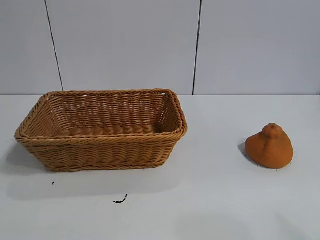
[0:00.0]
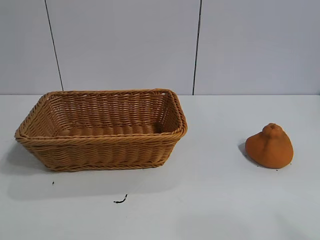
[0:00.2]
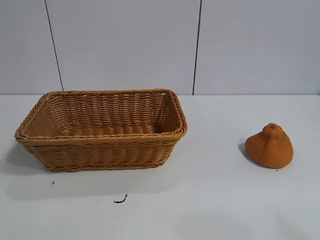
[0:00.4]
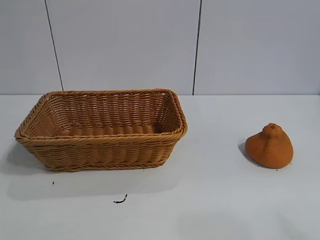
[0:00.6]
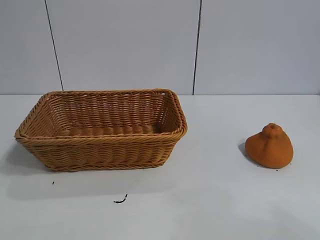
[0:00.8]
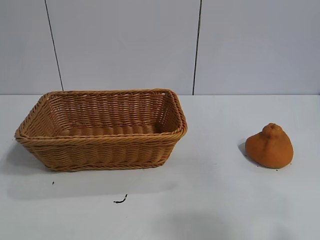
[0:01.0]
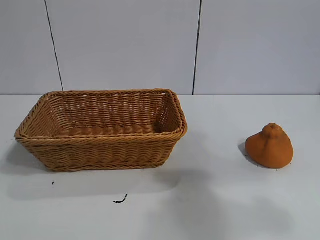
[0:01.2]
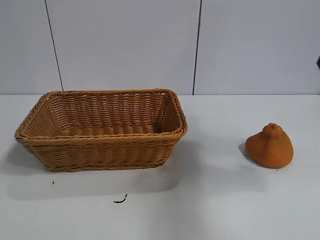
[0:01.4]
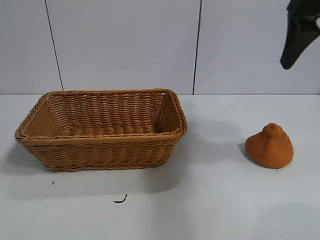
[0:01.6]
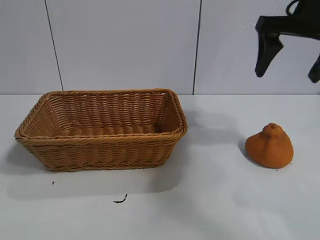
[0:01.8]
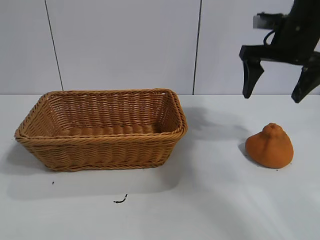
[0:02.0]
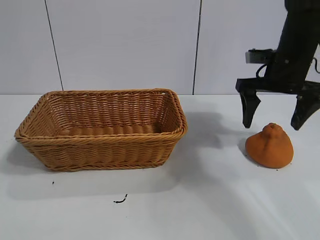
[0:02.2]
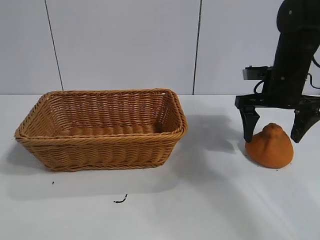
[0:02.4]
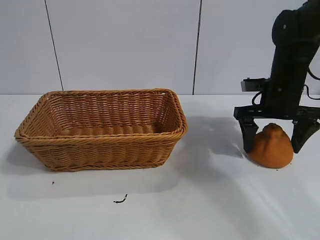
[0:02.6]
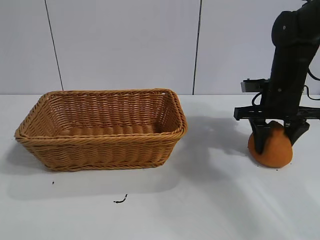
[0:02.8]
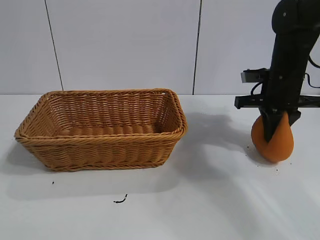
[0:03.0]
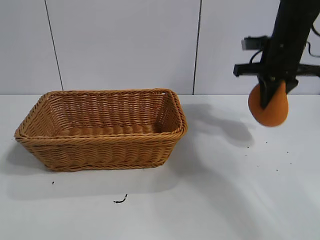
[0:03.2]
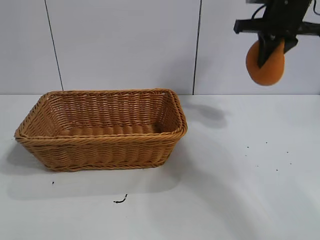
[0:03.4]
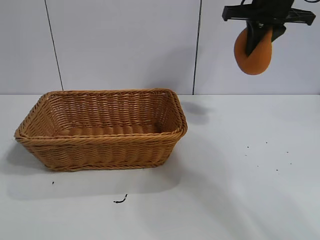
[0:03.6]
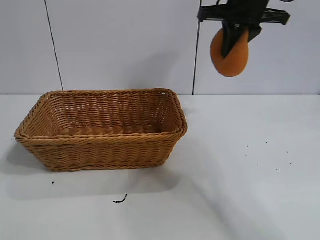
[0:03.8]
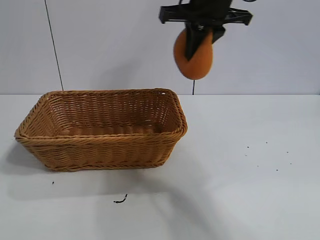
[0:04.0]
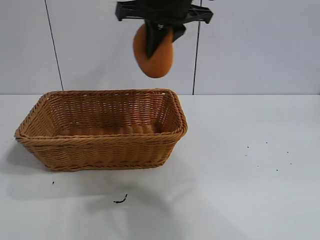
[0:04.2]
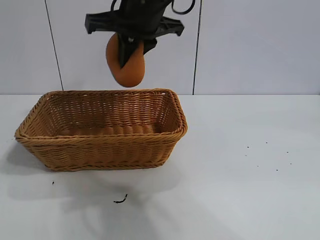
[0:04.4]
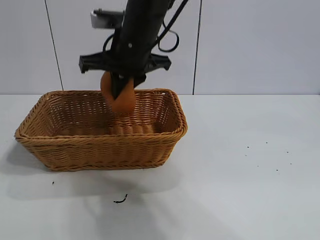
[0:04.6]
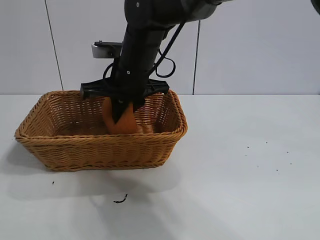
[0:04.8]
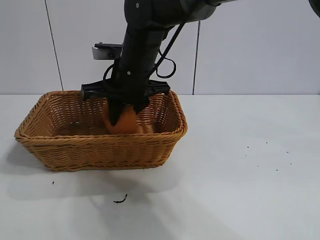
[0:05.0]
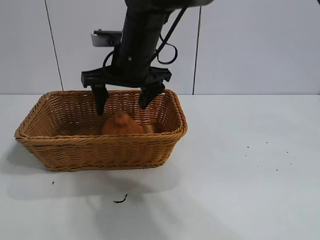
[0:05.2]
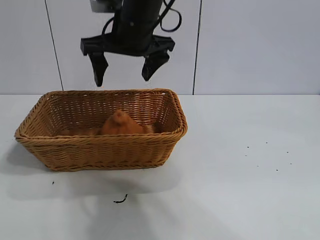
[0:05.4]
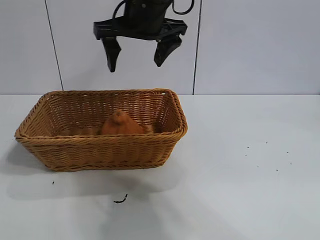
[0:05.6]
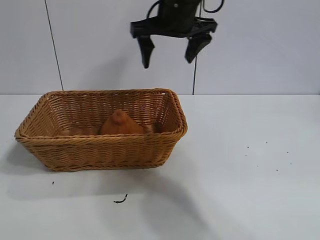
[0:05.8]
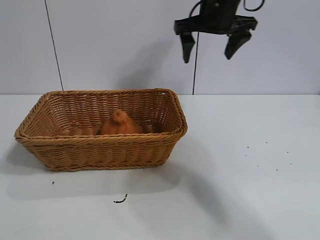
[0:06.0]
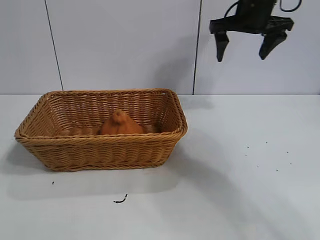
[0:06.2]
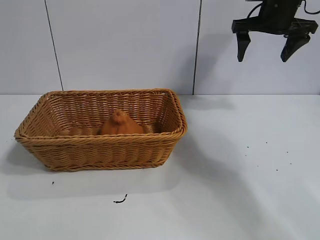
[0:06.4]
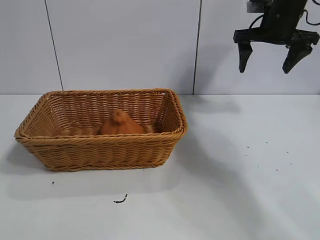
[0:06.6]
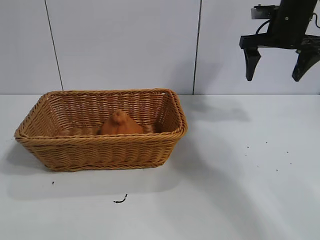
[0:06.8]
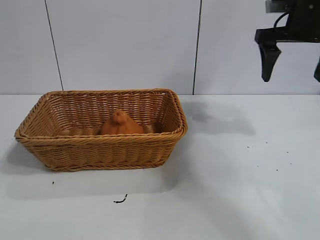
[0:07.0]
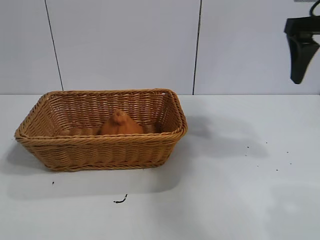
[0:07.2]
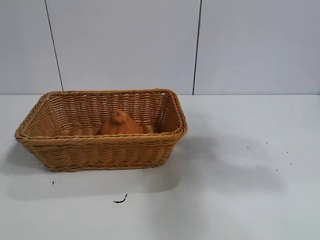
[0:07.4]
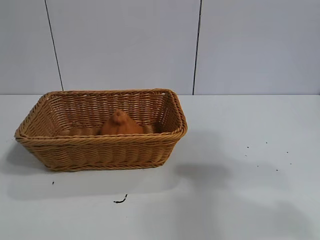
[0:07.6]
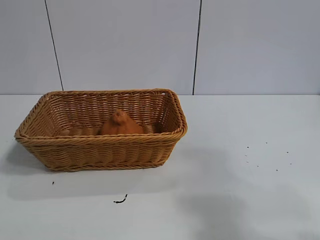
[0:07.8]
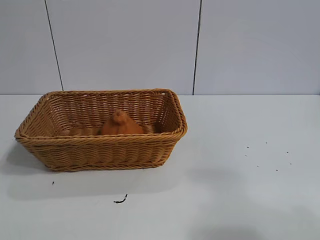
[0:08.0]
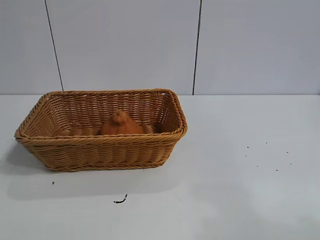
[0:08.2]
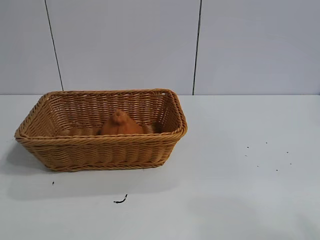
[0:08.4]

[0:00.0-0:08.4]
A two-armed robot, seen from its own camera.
Task of the whole recording: pick up the orange and put it into the basket.
Step, 0:00.6 to 0:02.8: Grasp the orange with right gripper.
Step, 0:03.0 to 0:05.2: Place the orange in the basket with right gripper.

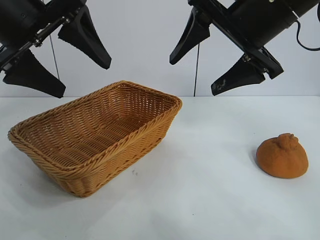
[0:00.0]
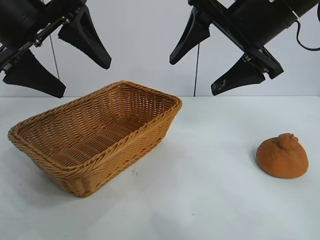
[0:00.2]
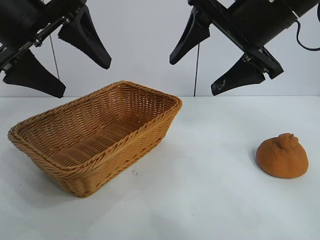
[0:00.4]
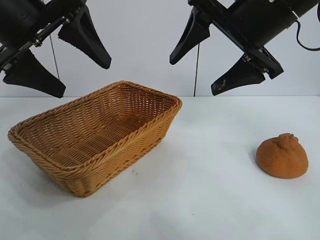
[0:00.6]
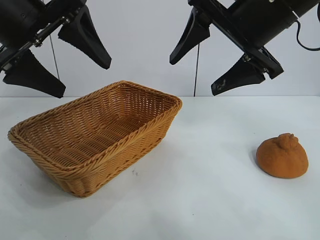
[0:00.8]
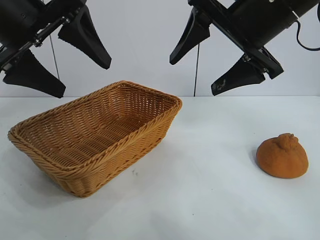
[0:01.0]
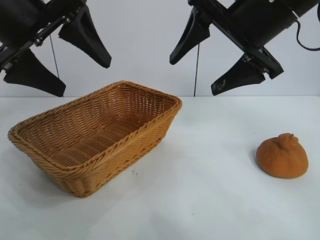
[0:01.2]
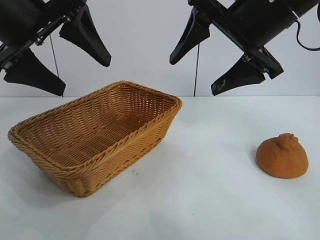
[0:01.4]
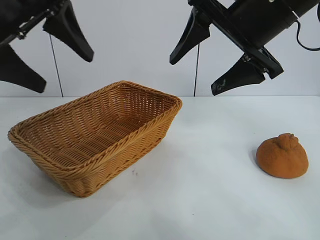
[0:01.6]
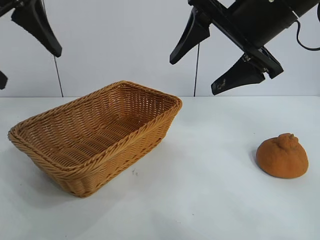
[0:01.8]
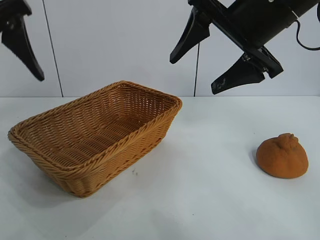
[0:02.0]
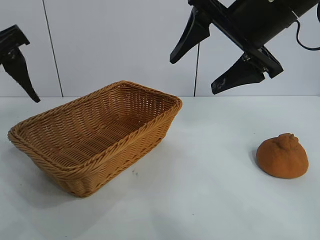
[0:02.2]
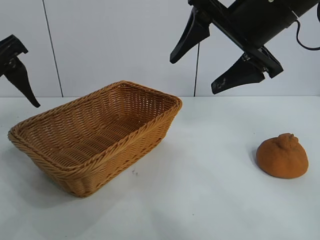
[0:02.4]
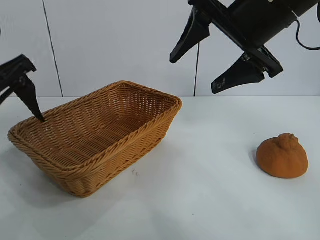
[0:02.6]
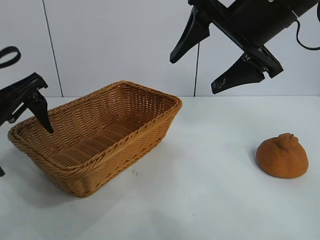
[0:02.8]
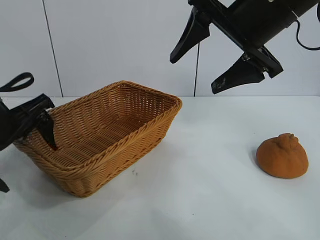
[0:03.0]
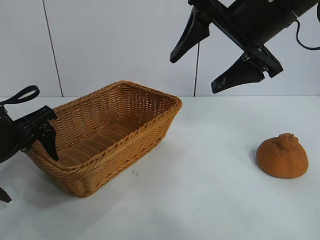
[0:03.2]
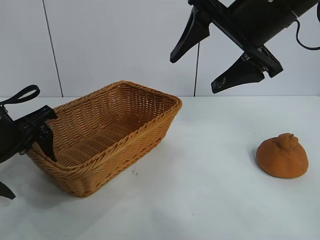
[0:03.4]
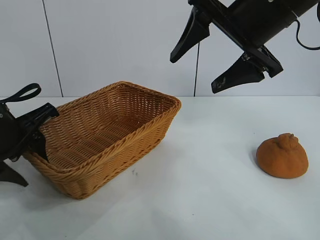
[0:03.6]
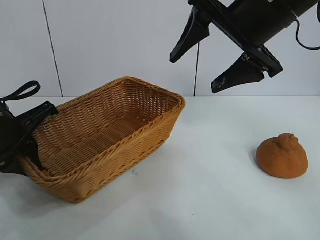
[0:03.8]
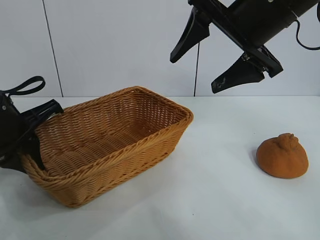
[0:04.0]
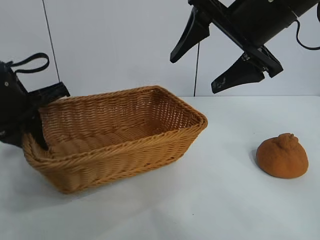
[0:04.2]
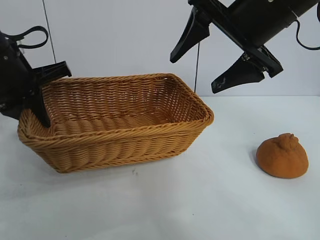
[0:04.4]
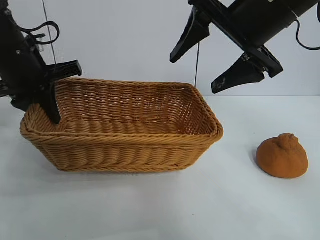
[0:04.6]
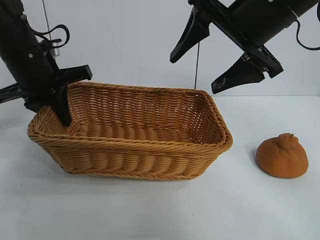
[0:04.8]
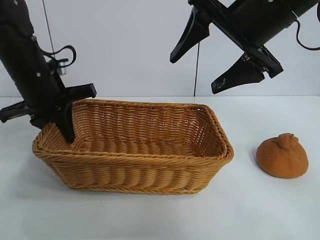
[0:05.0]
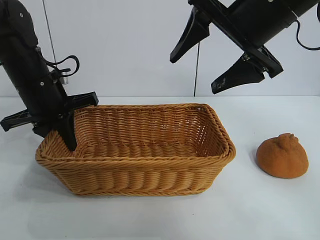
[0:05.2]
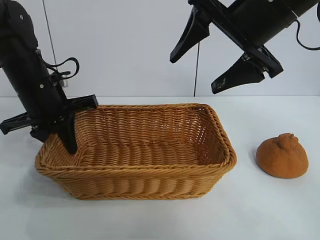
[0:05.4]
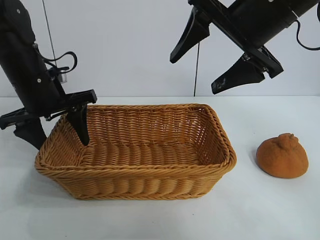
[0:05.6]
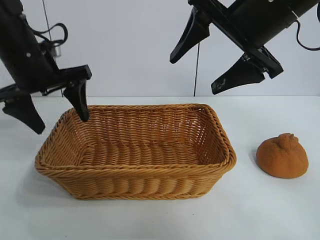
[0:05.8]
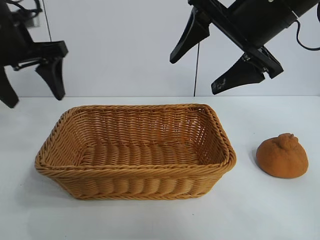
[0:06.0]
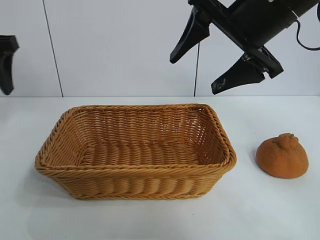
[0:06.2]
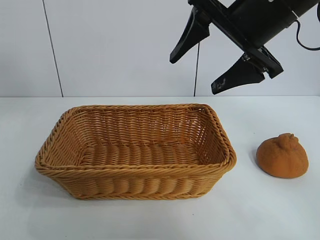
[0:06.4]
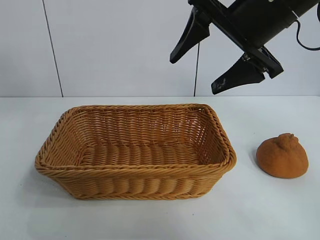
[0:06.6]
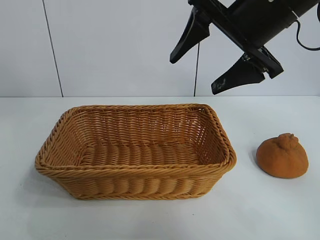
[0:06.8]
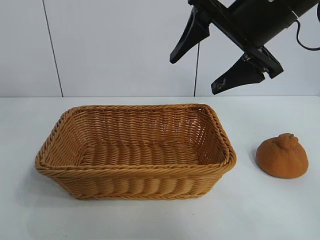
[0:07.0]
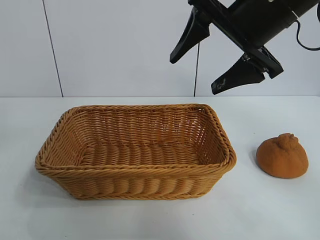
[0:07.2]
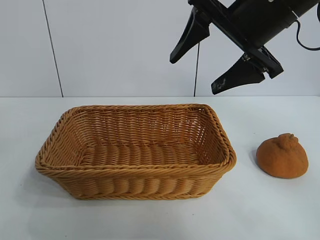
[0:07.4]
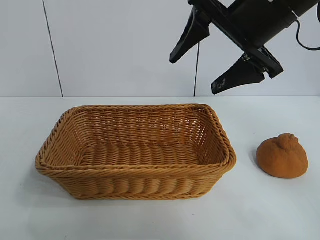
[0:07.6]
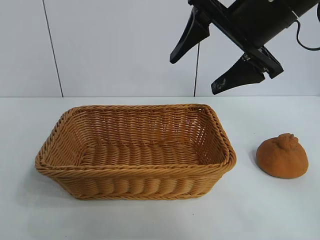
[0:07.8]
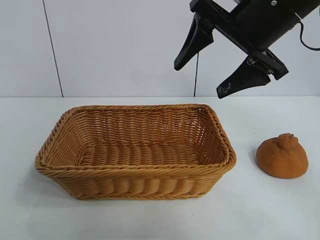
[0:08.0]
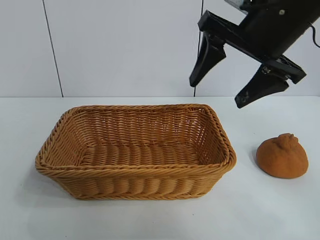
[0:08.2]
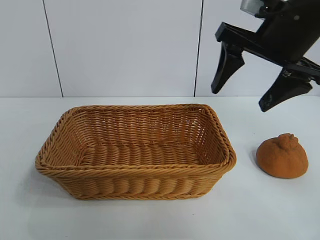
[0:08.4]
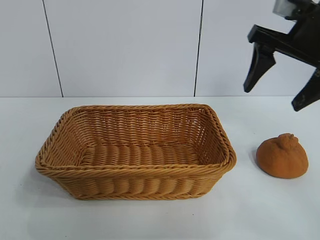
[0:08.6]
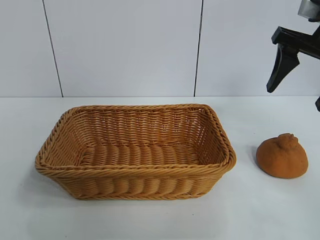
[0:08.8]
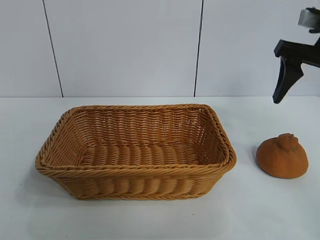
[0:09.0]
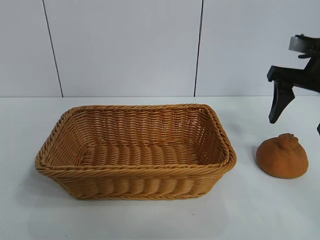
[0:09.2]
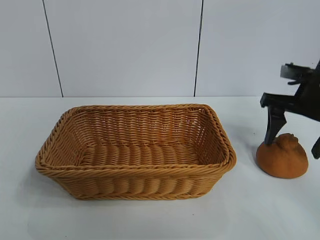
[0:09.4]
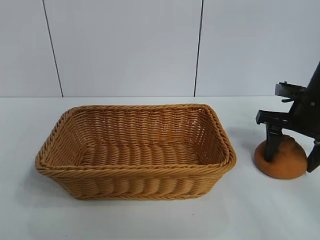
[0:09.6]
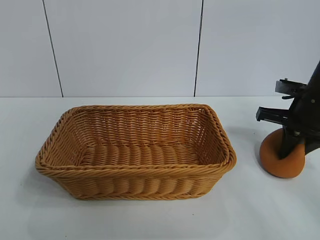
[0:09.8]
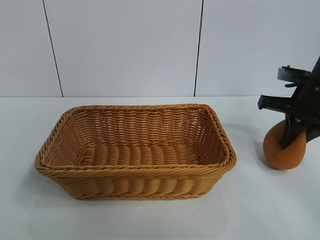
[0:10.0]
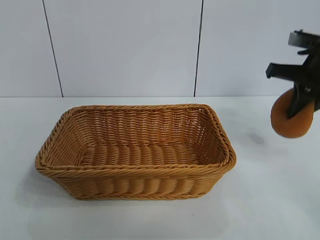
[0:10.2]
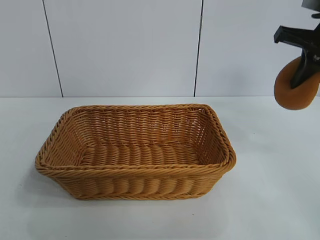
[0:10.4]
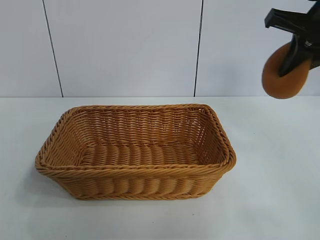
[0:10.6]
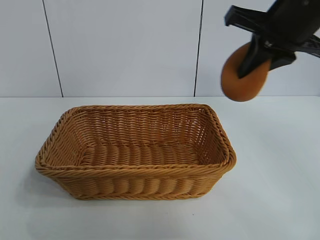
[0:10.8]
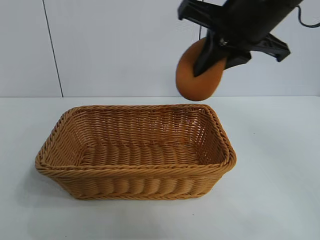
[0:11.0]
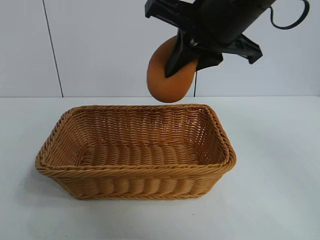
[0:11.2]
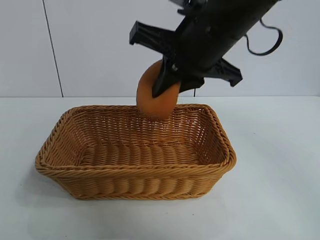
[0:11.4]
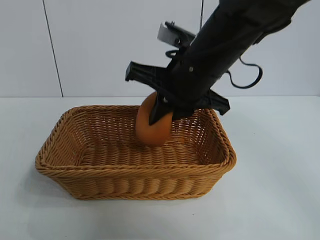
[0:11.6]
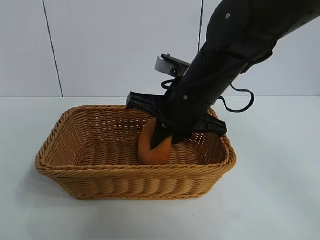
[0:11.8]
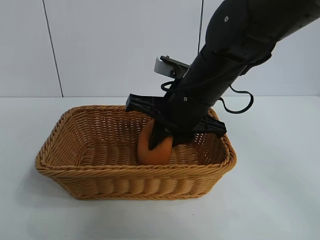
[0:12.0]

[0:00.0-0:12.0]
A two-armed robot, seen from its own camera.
Task of the whole recording: pick up the orange and put it into the basket.
Step, 0:01.2 to 0:03.8: Grasp the basket with left gripper.
Step, 0:04.0 to 0:05.4: Place the basket in the center of view with left gripper.
Step, 0:05.8 to 0:09.6: Grasp the orange with right gripper.

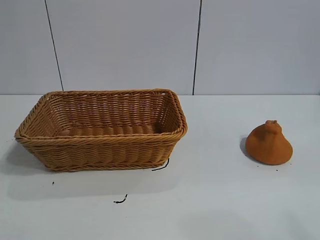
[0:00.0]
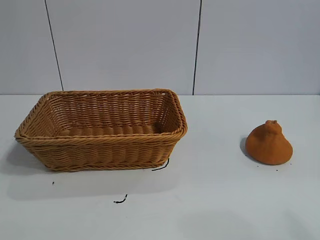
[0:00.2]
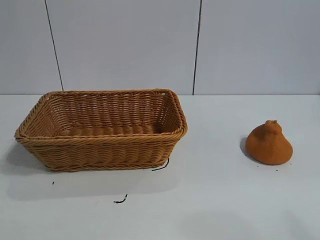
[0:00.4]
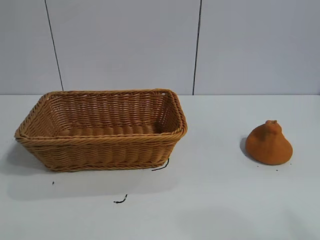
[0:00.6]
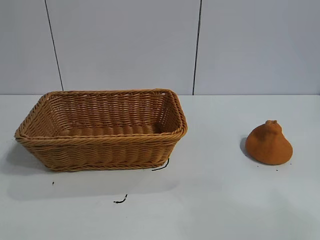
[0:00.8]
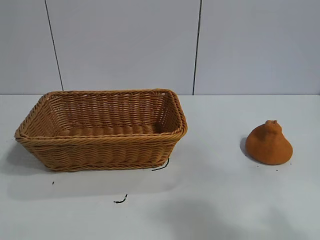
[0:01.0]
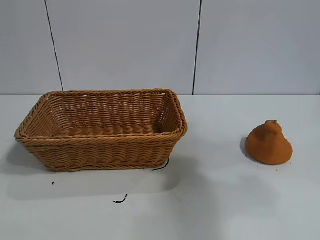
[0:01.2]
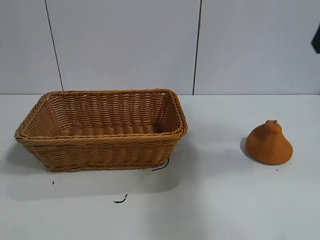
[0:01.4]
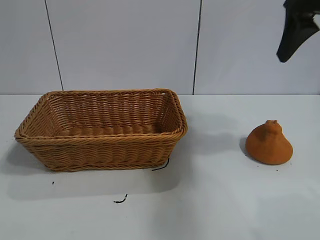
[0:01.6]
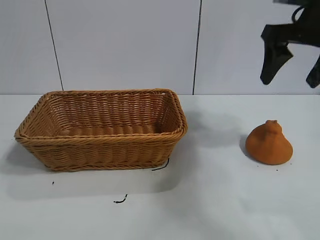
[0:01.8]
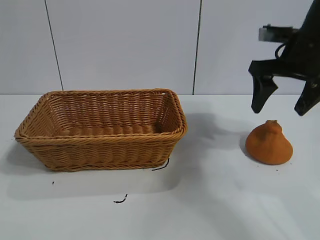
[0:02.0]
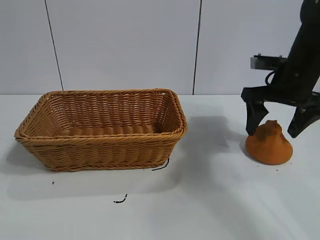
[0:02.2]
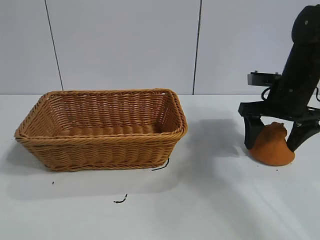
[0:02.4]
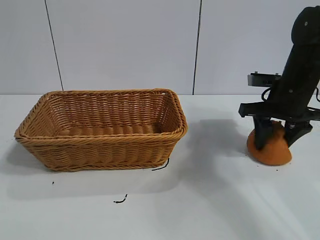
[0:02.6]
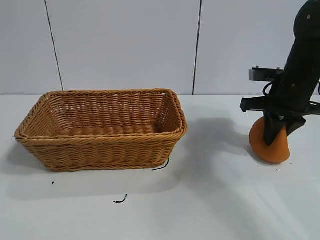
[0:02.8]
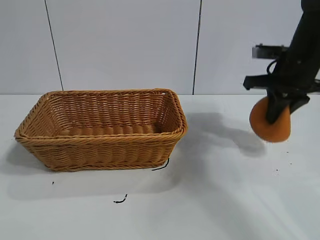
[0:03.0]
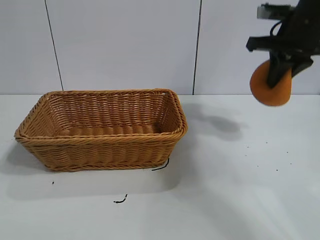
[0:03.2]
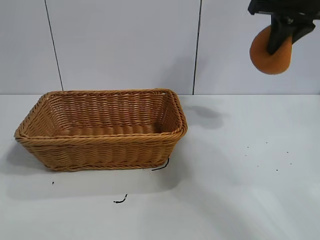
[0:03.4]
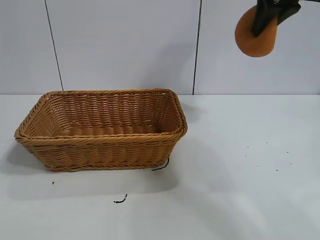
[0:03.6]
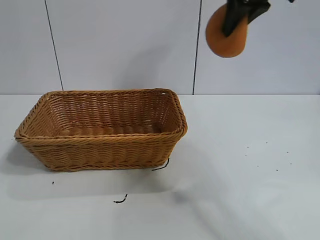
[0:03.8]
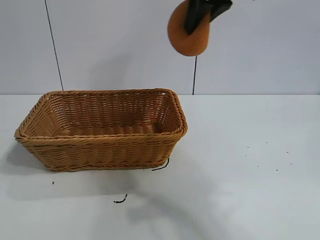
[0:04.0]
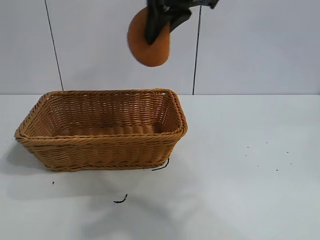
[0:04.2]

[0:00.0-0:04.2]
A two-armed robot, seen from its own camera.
Task of the whole recording: pick up the orange and put it into the basket.
Step, 0:00.6 to 0:02.8: Grasp the orange with right gripper.
